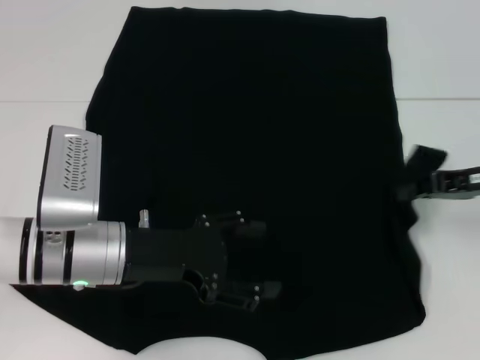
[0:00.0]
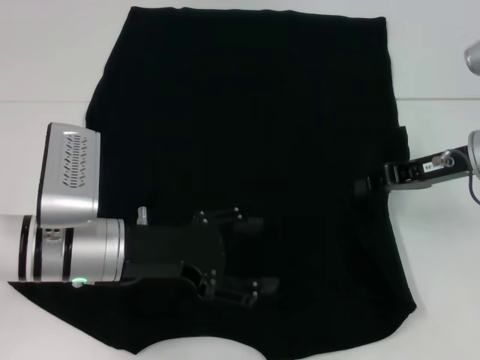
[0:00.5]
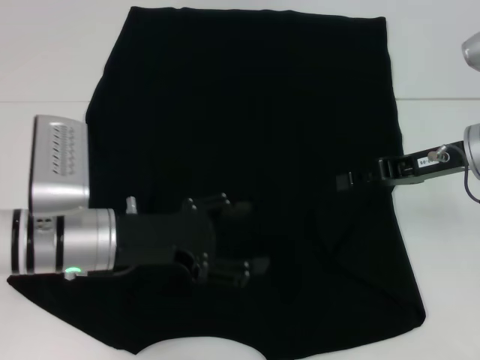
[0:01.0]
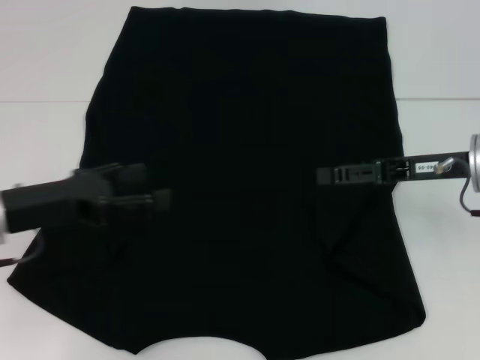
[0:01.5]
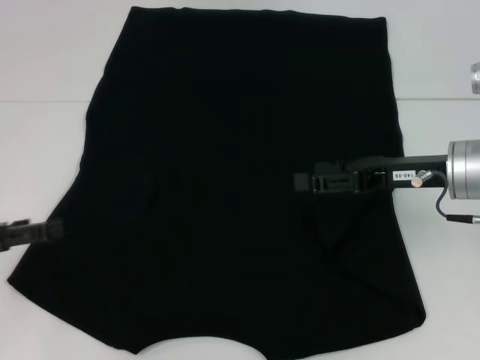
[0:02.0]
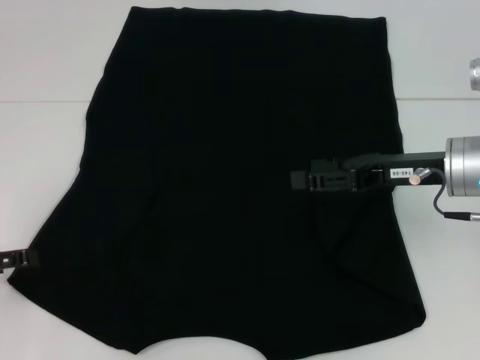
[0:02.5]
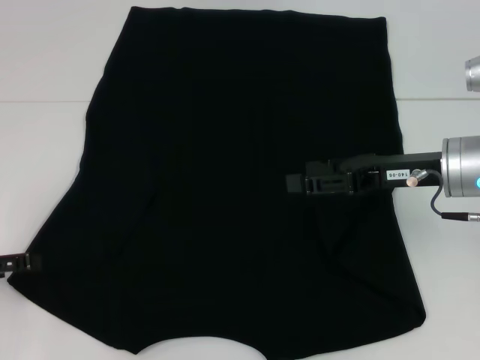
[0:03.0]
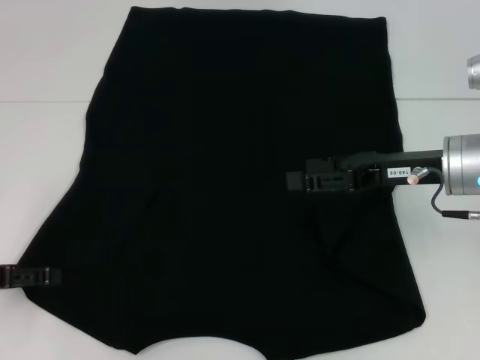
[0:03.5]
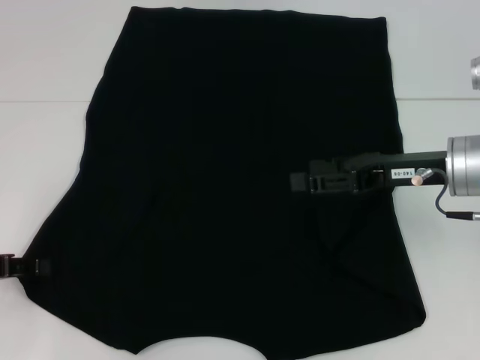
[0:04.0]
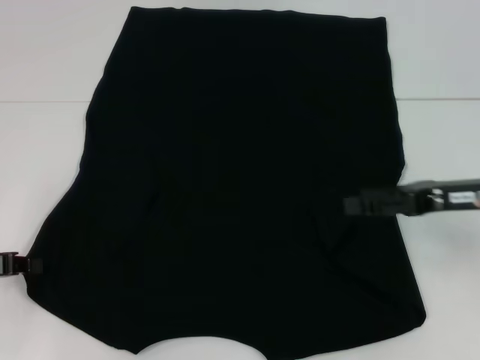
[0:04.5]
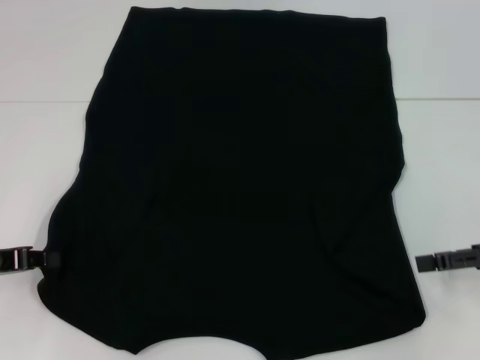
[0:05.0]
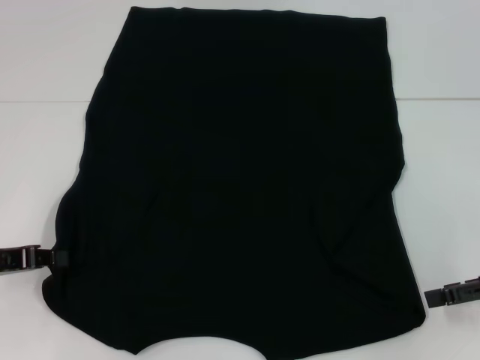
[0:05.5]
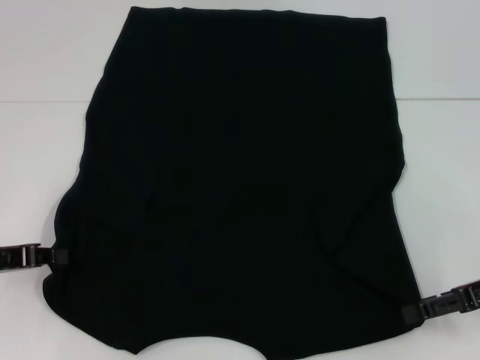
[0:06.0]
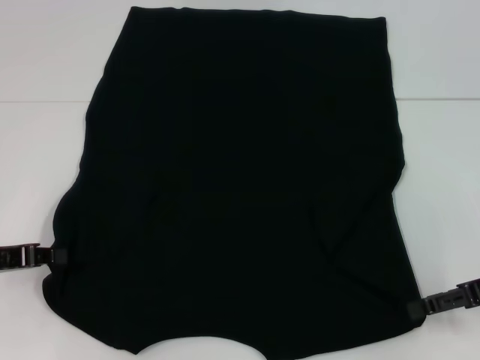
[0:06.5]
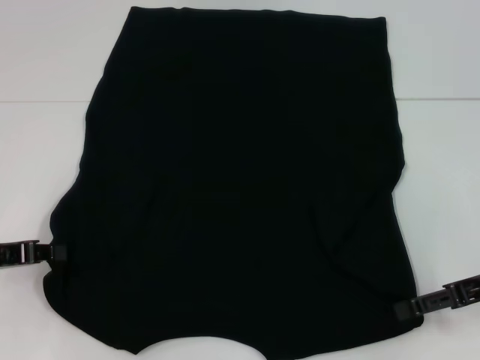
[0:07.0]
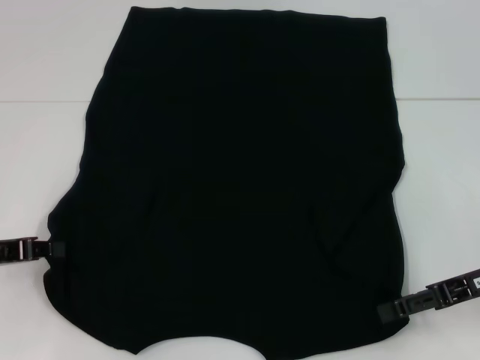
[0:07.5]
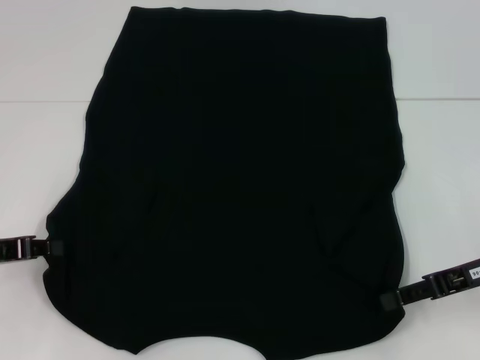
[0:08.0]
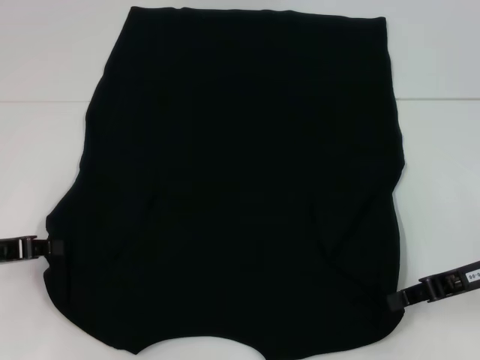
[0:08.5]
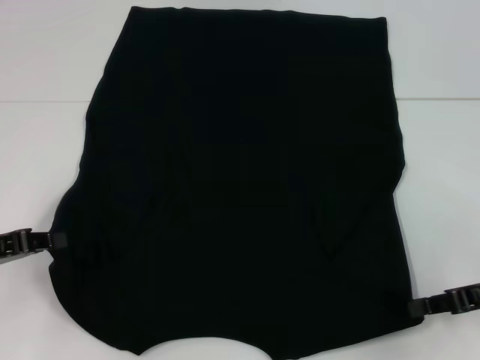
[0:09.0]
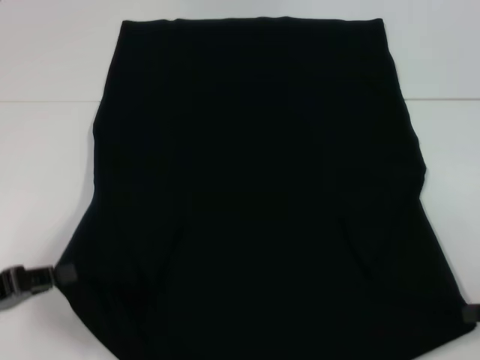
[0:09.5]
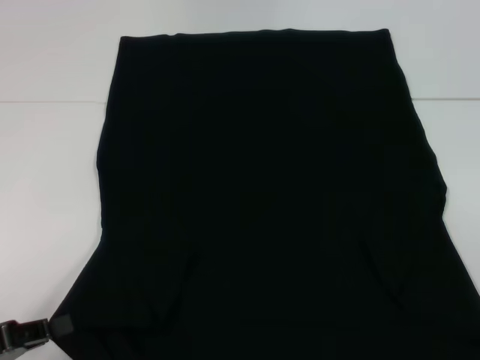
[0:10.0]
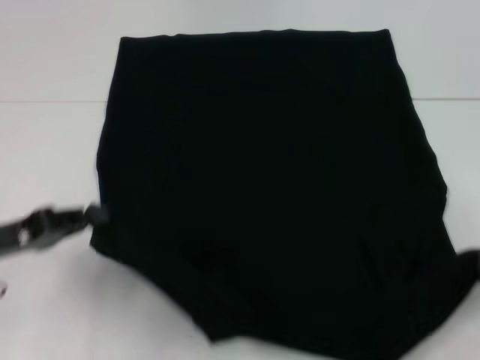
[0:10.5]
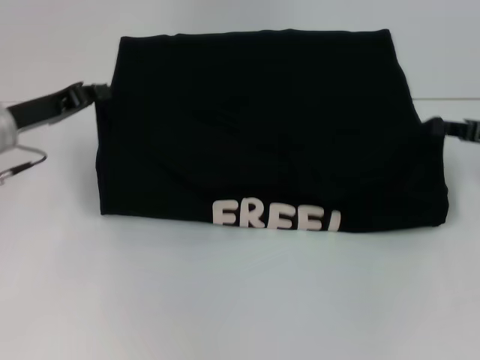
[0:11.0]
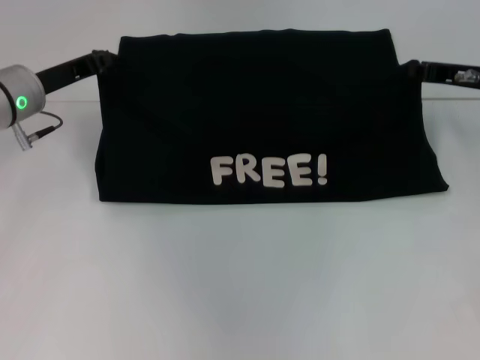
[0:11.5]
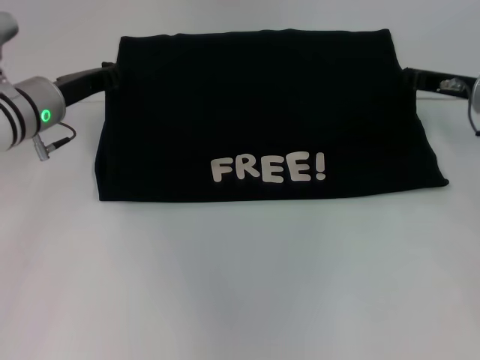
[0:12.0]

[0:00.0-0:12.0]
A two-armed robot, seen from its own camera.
Step, 0:01.0 to 0:09.0: Grab the bottom left corner with your left hand.
Step, 0:01.0 to 0:09.0: Grab the bottom right corner with your right hand.
0:00.0 to 0:02.0: The left gripper goes roughly 20 cm to the left; the right gripper goes approximately 5 cm to the left, and opens up.
0:02.0 to 0:04.0: The grippers make only small movements.
0:04.0 to 0:06.0: The left gripper closes its fingers, while the right gripper moves to the right and backward, roughly 10 cm.
0:06.0 to 0:08.0: The grippers move only a little.
0:08.0 to 0:10.0: The left gripper heads backward, covering some 10 cm. Meanwhile the right gripper is displaced to the right and backward by some 15 cm, and closes up.
0:10.0 to 0:12.0: The right gripper goes roughly 30 cm forward and to the left; the left gripper heads forward, covering roughly 25 cm.

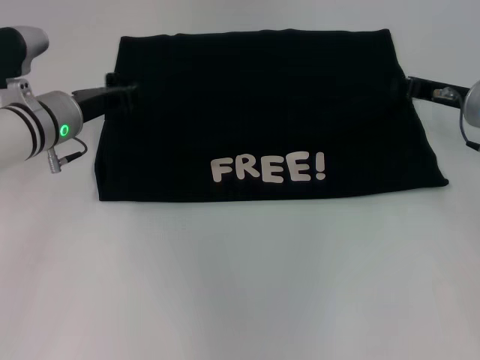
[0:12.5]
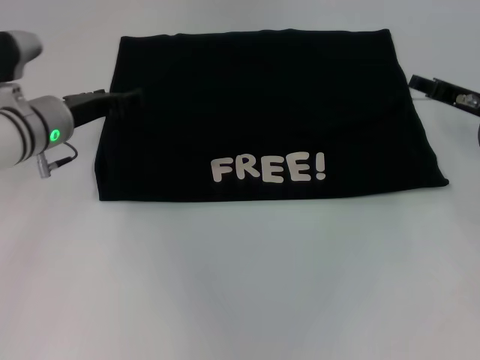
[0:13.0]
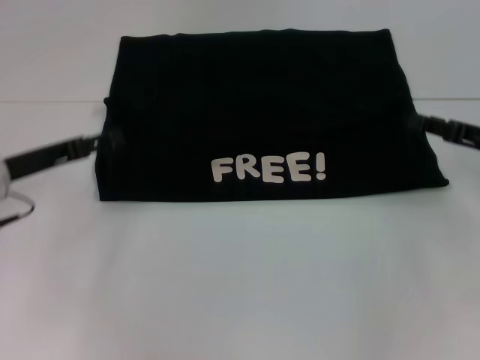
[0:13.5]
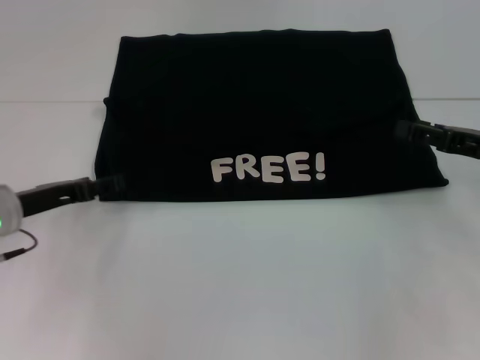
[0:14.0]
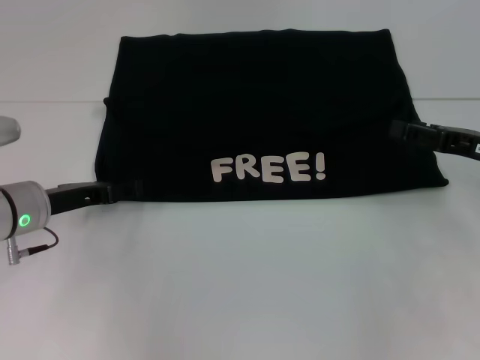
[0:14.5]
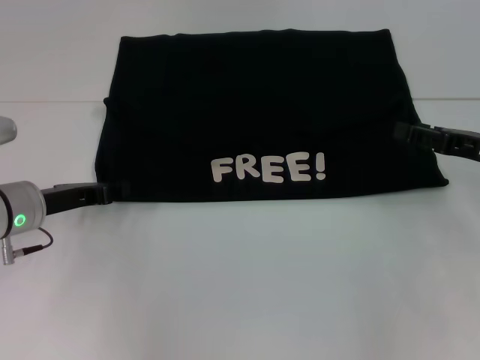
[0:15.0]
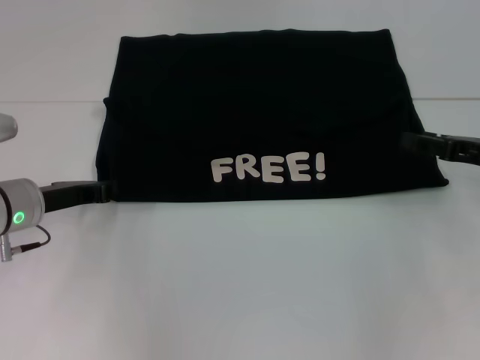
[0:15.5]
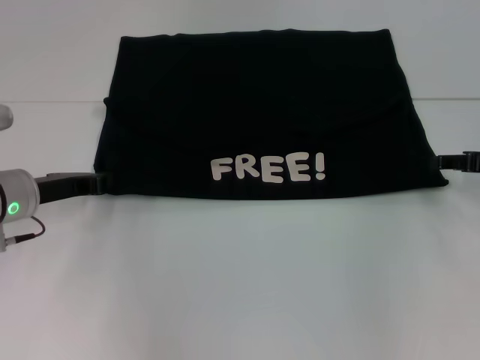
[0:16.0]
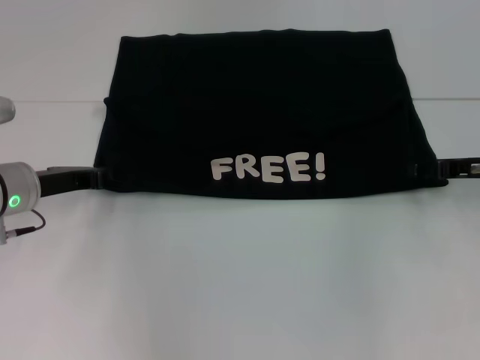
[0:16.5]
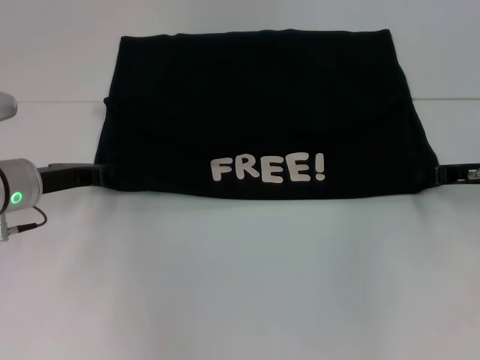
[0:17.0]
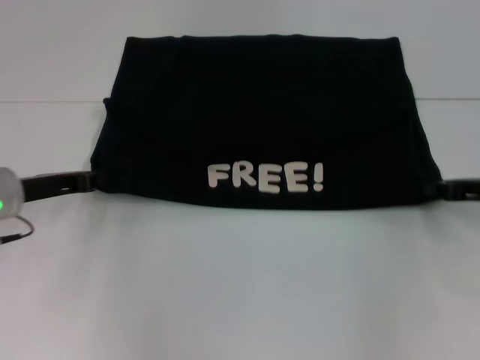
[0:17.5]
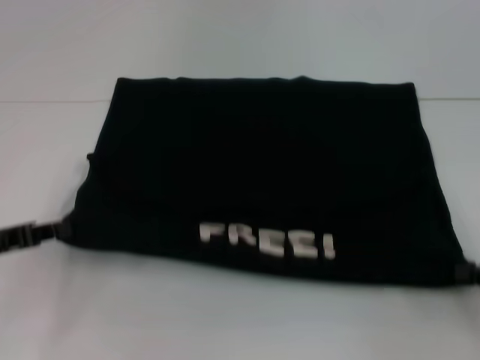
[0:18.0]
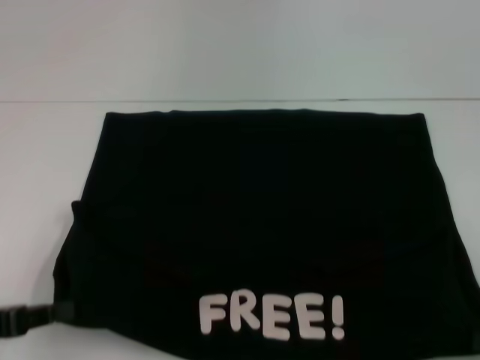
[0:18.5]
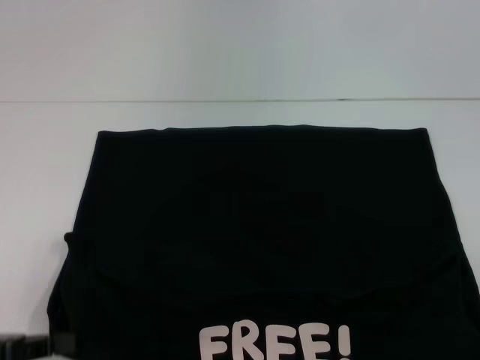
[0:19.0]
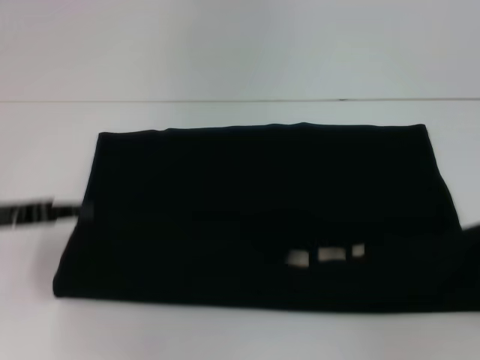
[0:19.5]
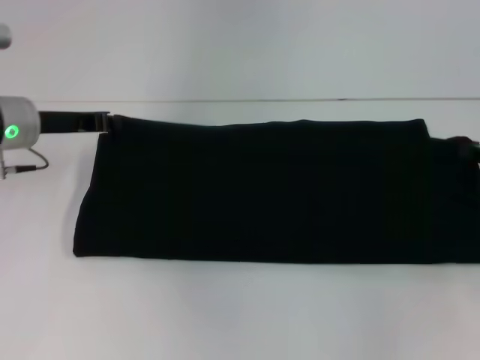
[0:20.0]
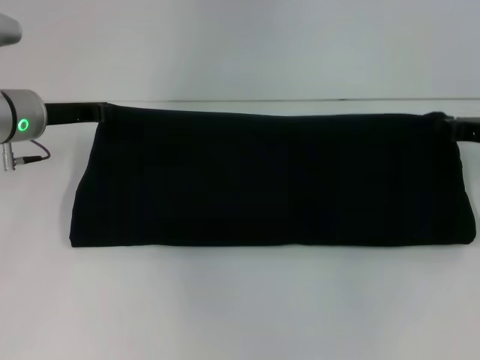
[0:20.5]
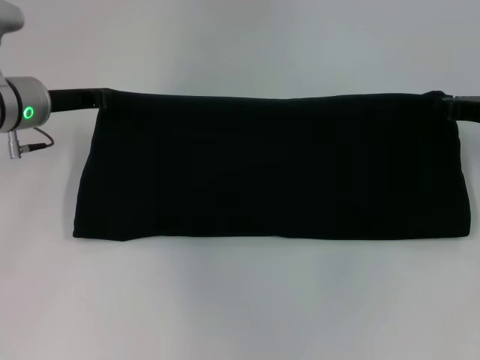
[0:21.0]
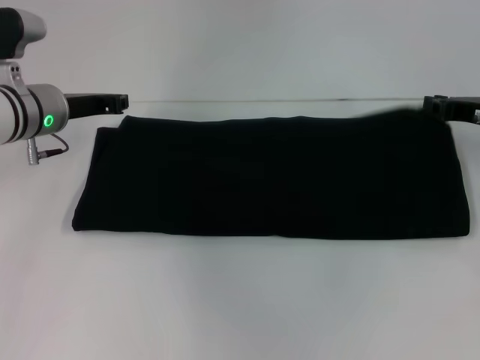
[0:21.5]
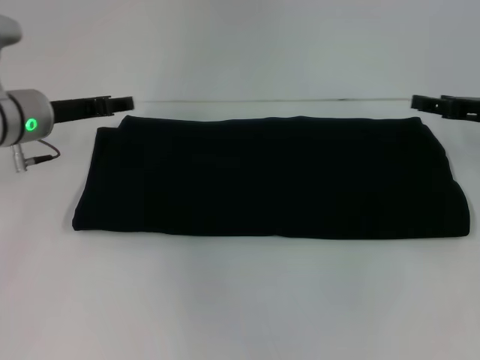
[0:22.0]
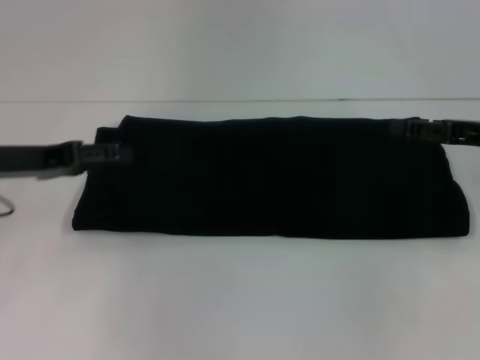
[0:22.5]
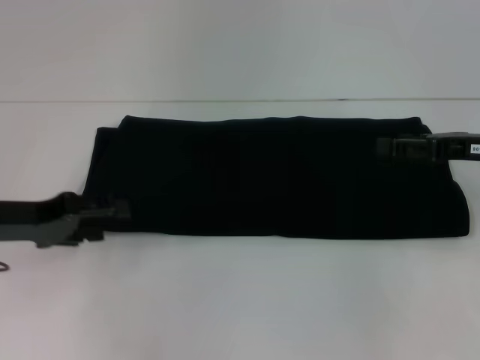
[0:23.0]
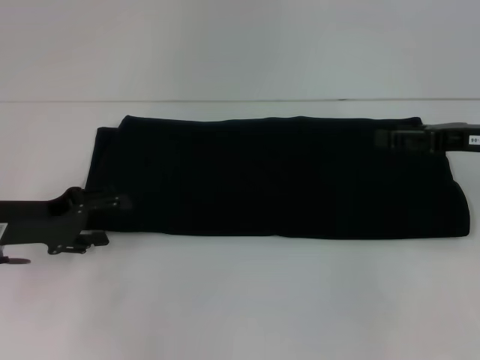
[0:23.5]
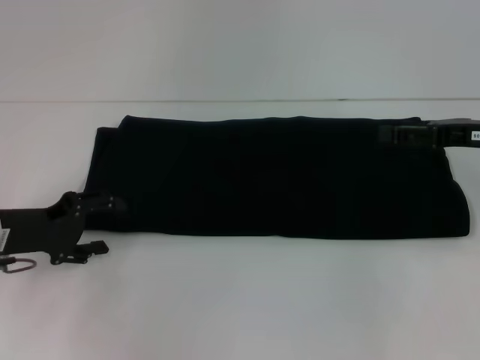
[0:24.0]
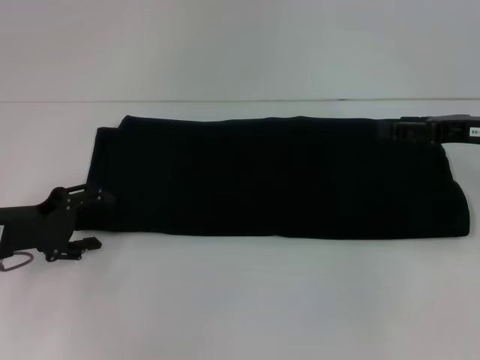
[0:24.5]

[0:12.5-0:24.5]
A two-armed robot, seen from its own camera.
Step, 0:13.0 to 0:18.0: Pull the clothes with your left hand.
Step, 0:13.0 to 0:18.0: Pull the clothes with your right hand.
Step, 0:18.5 to 0:22.0: Fold the clothes with your right hand.
0:12.5 to 0:14.5: The grippers both shift backward by some 10 cm. The right gripper opens its fingers, while the left gripper opens.
0:14.5 to 0:16.5: The left gripper closes up.
0:16.5 to 0:18.5: The grippers both shift backward by approximately 20 cm. The right gripper closes up.
0:18.5 to 0:20.5: Both grippers move forward, roughly 20 cm.
0:20.5 to 0:22.5: The right gripper opens. Meanwhile the left gripper is displaced backward by some 10 cm, and opens.
0:22.5 to 0:24.5: The left gripper heads downward, covering about 10 cm.

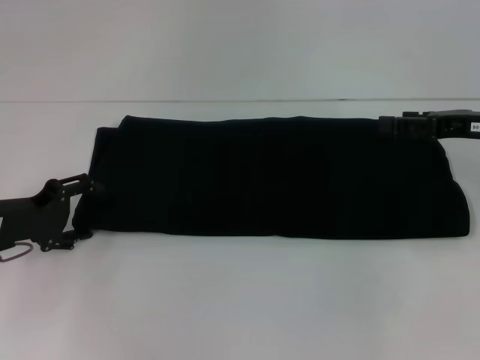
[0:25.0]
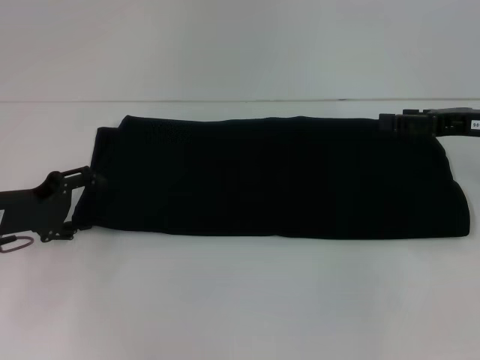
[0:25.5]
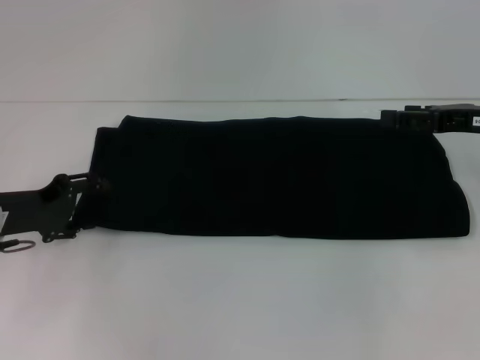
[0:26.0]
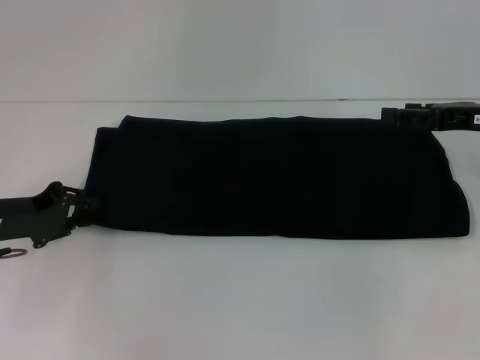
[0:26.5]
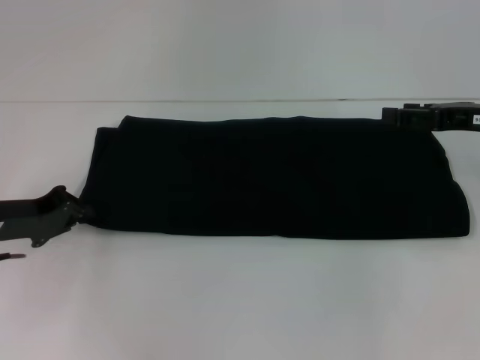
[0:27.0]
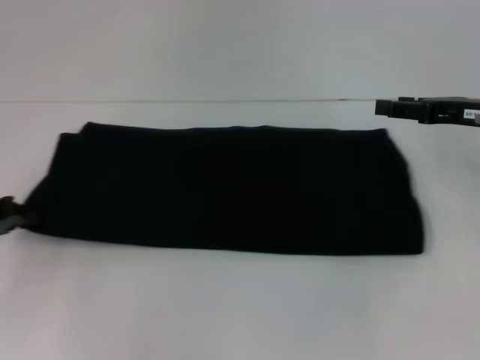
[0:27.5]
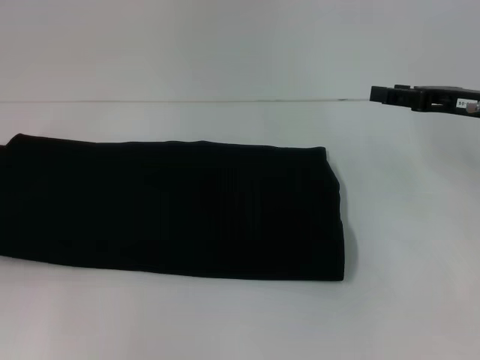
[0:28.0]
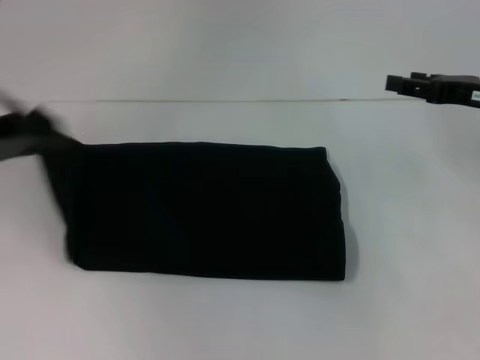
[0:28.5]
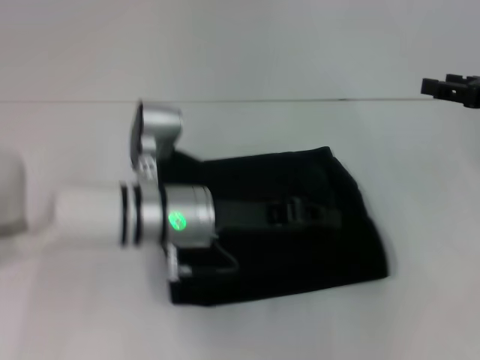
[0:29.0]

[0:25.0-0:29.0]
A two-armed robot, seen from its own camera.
0:25.0 to 0:27.0: The left gripper closes its fingers.
0:27.0 to 0:29.0: The left gripper moves to the right, approximately 20 cm.
